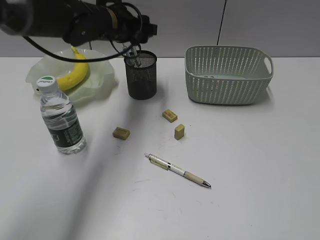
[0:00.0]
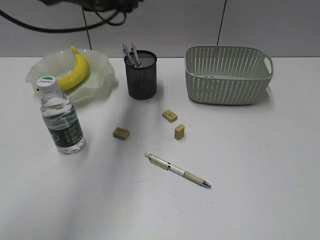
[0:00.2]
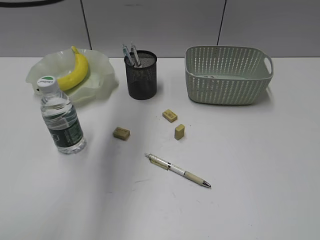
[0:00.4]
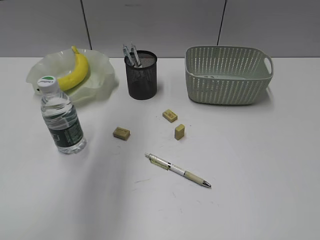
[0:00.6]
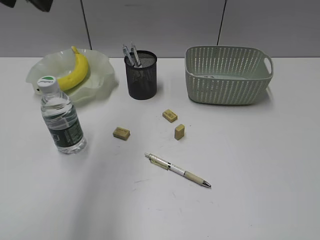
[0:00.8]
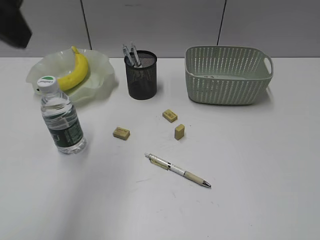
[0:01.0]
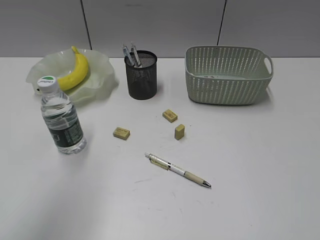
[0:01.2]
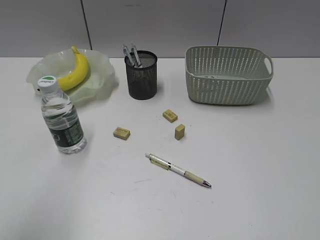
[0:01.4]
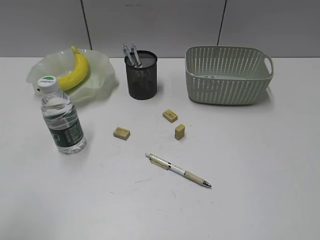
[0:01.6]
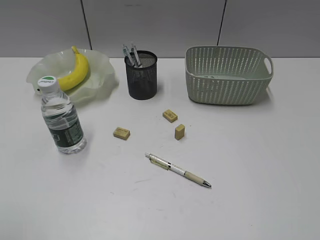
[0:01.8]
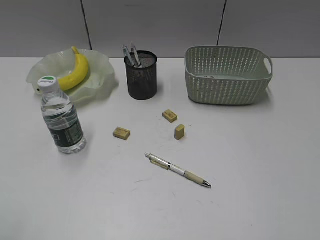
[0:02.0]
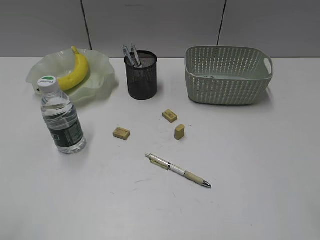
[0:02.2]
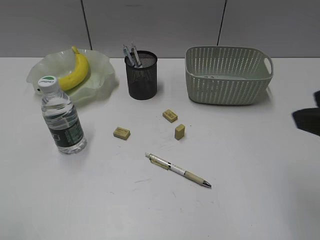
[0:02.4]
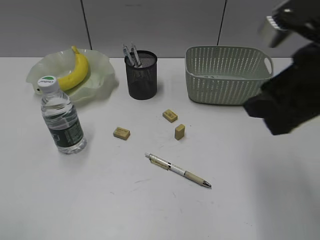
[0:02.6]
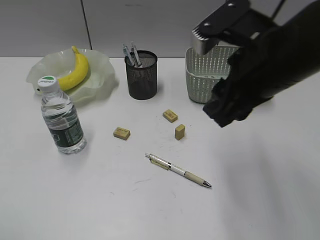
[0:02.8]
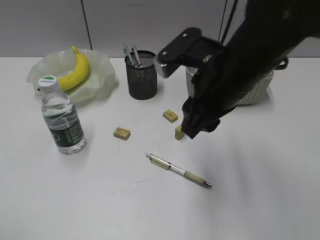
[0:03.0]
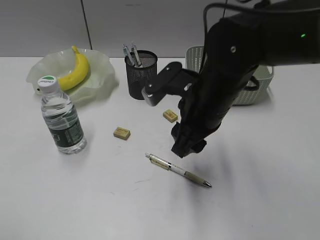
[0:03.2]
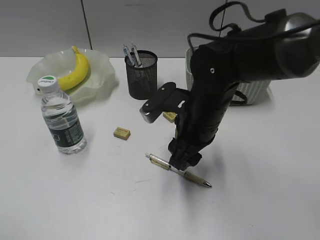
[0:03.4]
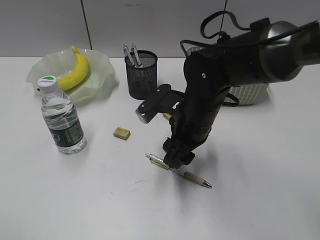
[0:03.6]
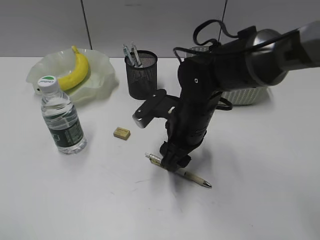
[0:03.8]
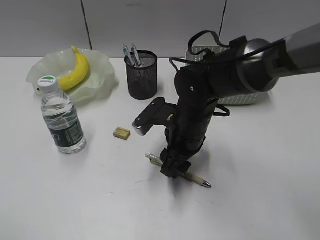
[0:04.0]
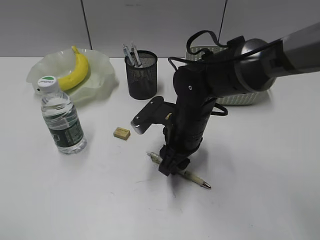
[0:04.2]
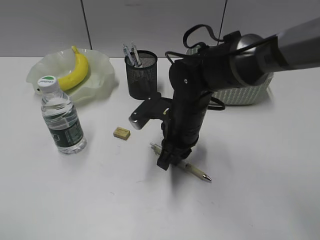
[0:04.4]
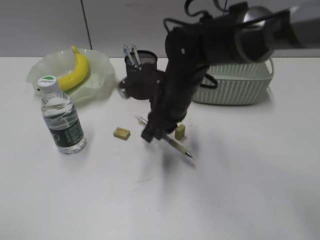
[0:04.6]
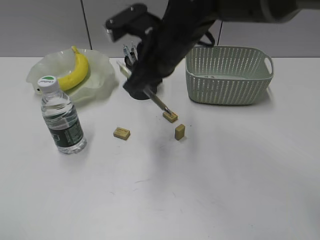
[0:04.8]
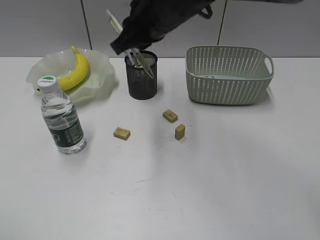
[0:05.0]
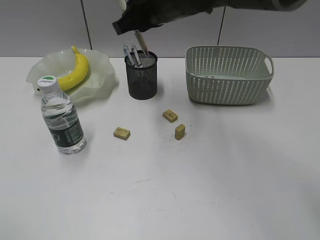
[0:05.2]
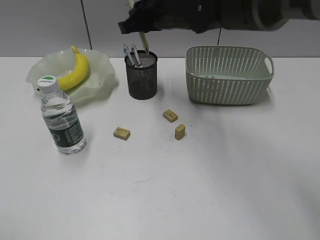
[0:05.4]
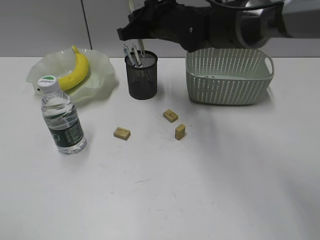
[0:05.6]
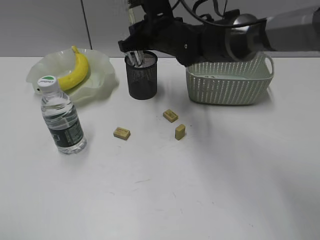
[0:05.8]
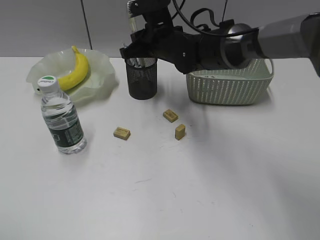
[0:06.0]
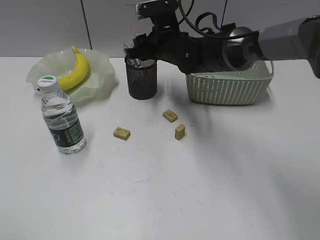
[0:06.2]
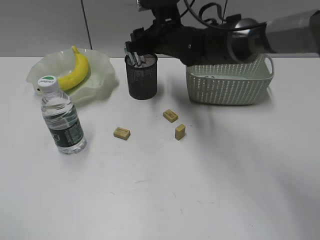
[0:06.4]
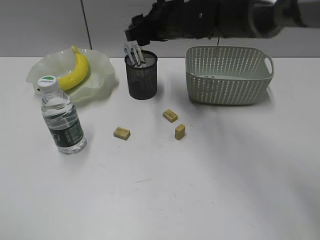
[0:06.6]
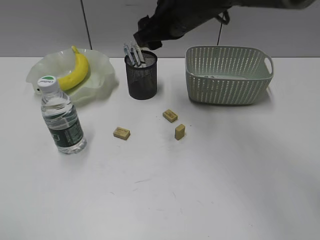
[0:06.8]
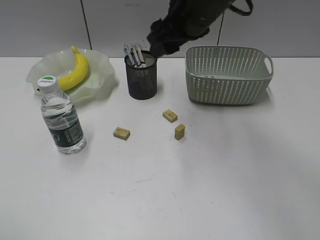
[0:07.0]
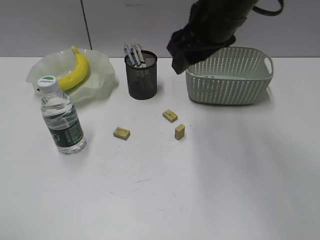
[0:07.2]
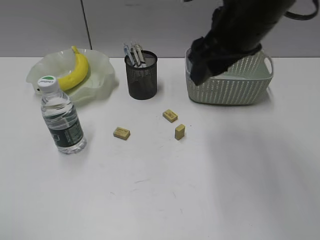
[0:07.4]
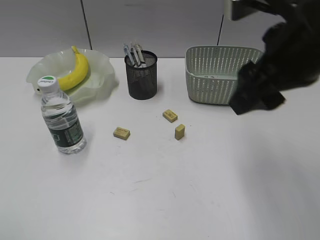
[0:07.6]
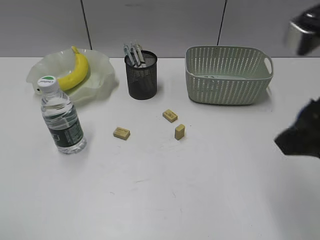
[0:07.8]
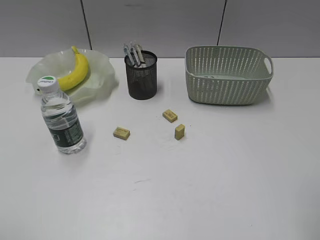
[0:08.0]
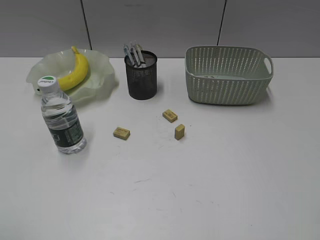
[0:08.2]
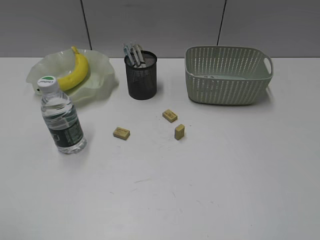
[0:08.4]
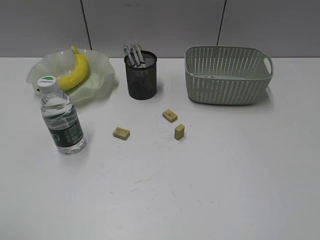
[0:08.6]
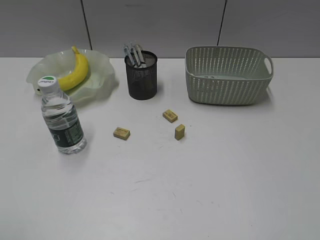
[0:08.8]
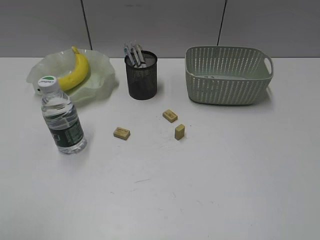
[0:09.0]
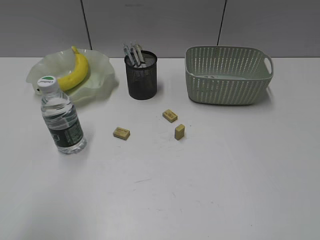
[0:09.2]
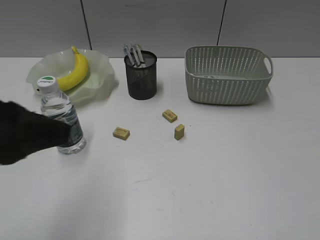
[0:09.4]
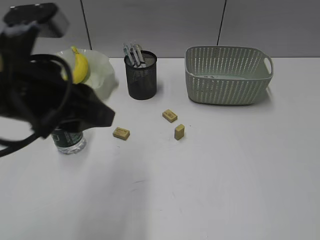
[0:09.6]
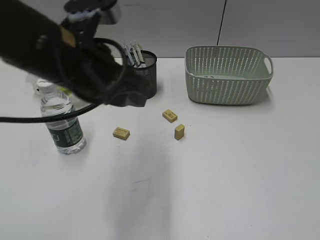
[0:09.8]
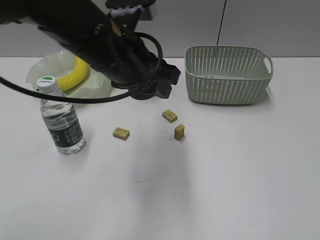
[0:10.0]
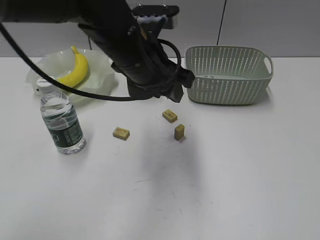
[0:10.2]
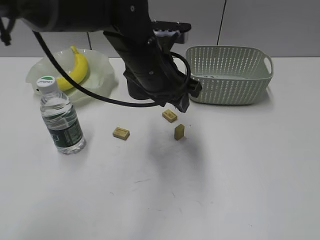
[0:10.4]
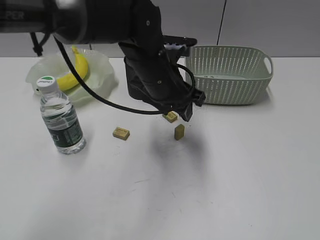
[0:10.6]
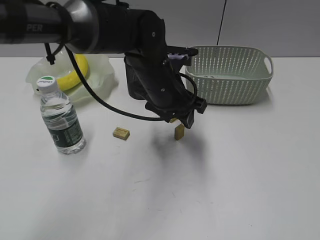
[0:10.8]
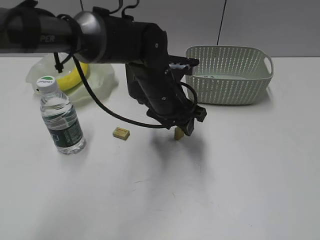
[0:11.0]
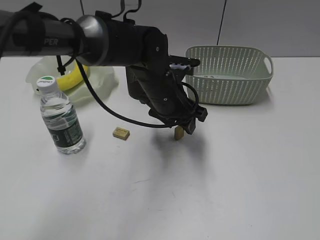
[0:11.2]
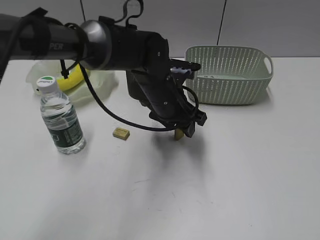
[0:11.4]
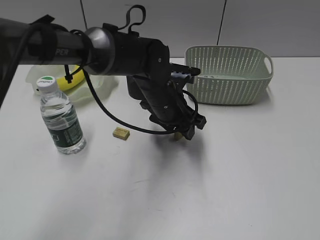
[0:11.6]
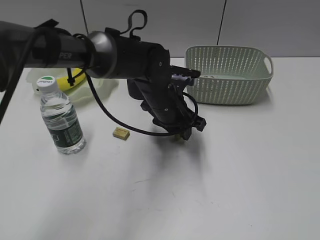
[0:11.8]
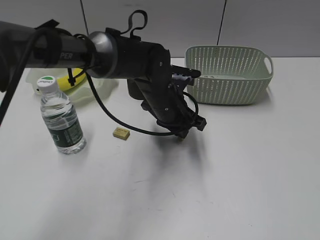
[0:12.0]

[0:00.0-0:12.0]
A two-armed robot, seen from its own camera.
Step, 0:00.0 to 0:04.4: Grasp the yellow pen with right gripper.
Step, 0:04.6 to 0:06.2: Place the yellow pen in pen holder with right gripper.
Step, 0:06.4 to 0:12.0: Grasp the eraser with left gripper.
0:00.0 to 0:01.6: The left gripper travels backward and to the left by approximately 40 cm.
0:01.6 to 0:03.0: The right gripper goes some 35 cm forward and to the left.
0:03.0 to 0:04.4: The right gripper goes about 10 cm downward, and closes its fingers.
0:04.4 to 0:06.0: The right gripper heads forward and upward, covering some 15 cm.
0:06.0 to 0:07.6: The right gripper moves backward, upward and to the right, about 30 cm, and opens up.
0:07.6 to 0:09.0: The right gripper moves backward and to the right, some 30 cm.
0:09.0 to 0:10.4: The left gripper is displaced forward and to the right by roughly 40 cm.
0:10.4 to 0:12.0: The left gripper heads downward, covering approximately 10 cm, and closes its fingers.

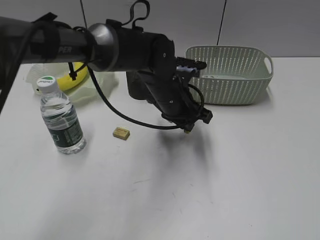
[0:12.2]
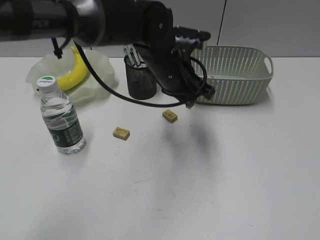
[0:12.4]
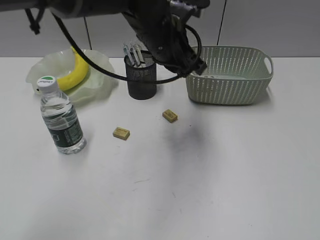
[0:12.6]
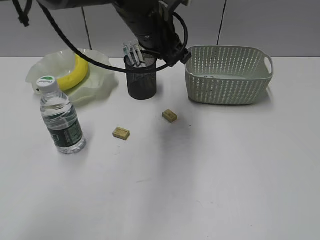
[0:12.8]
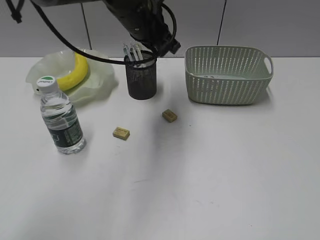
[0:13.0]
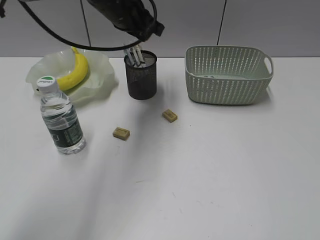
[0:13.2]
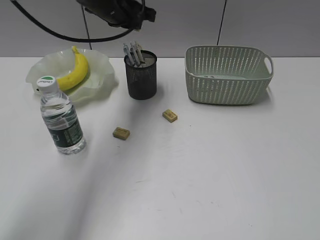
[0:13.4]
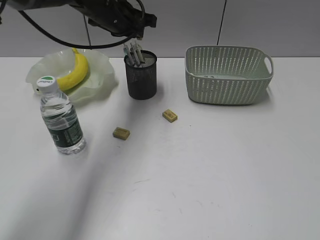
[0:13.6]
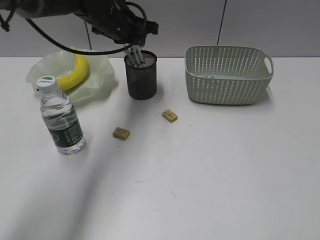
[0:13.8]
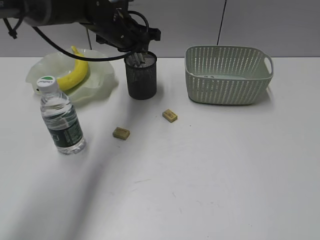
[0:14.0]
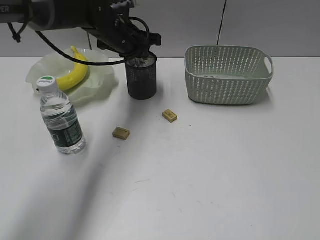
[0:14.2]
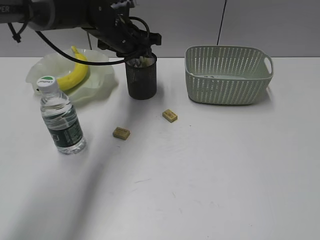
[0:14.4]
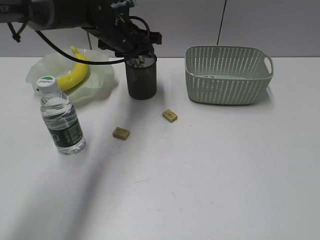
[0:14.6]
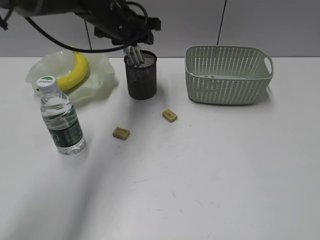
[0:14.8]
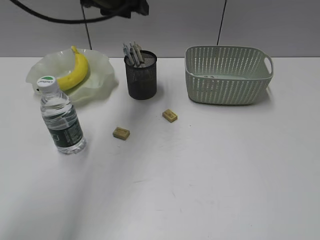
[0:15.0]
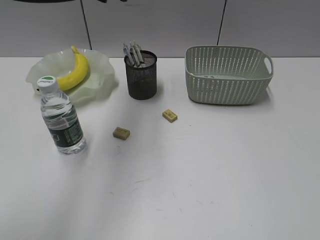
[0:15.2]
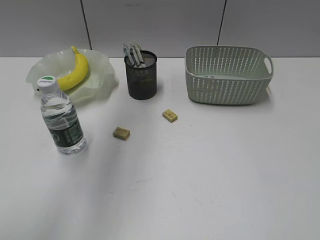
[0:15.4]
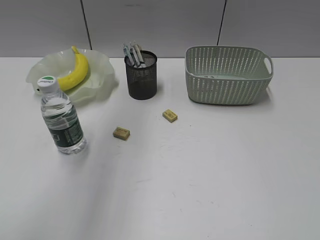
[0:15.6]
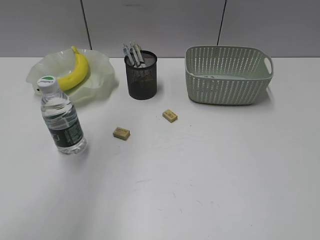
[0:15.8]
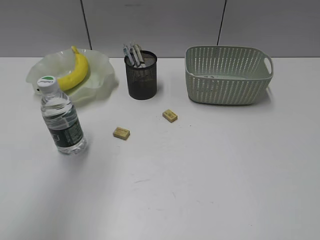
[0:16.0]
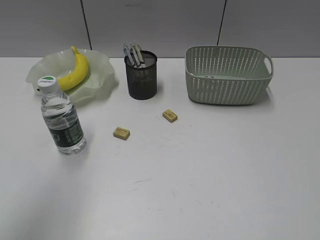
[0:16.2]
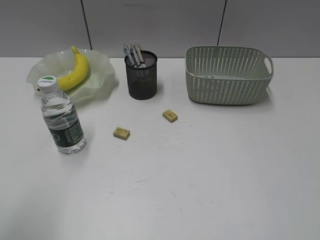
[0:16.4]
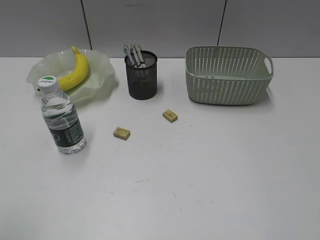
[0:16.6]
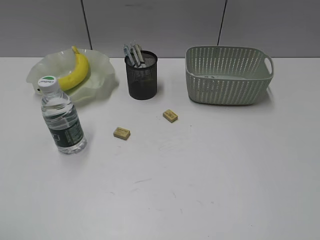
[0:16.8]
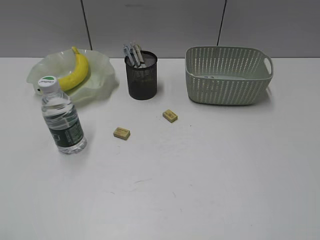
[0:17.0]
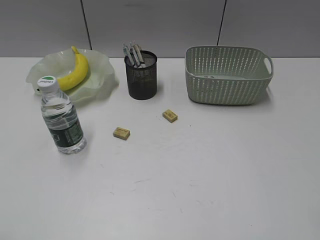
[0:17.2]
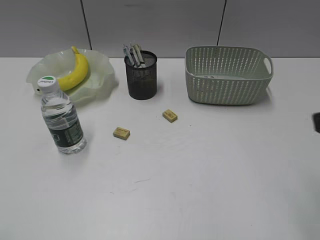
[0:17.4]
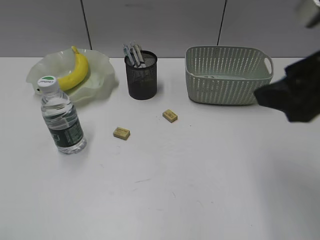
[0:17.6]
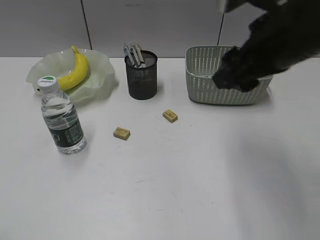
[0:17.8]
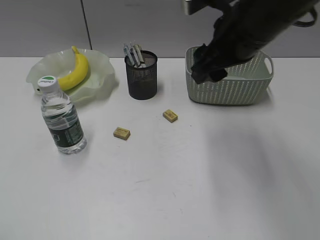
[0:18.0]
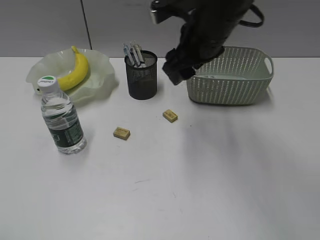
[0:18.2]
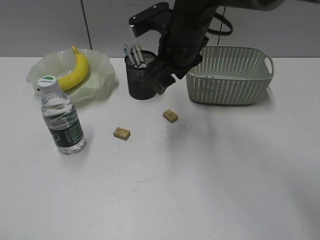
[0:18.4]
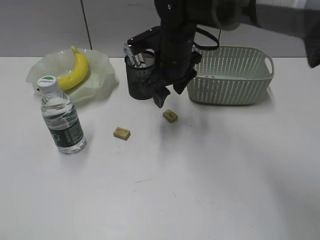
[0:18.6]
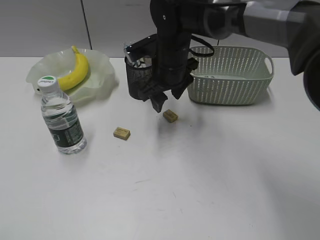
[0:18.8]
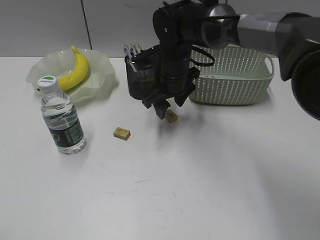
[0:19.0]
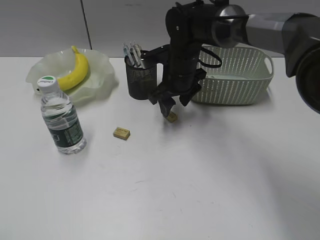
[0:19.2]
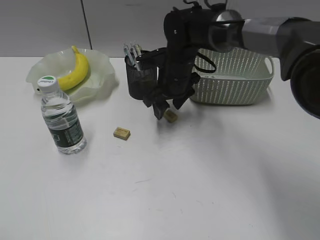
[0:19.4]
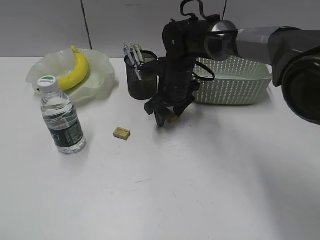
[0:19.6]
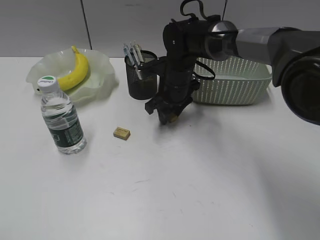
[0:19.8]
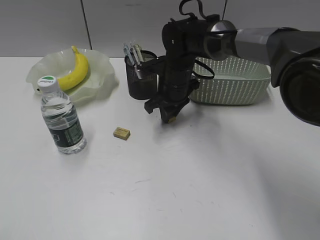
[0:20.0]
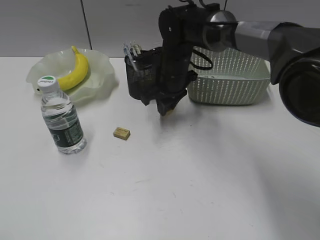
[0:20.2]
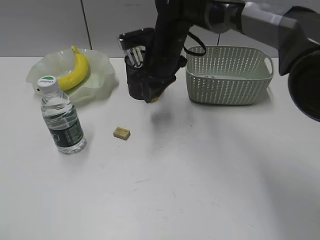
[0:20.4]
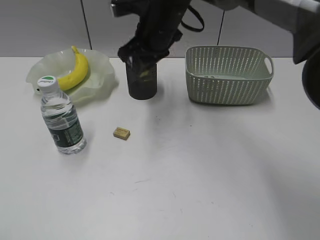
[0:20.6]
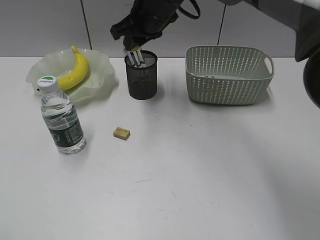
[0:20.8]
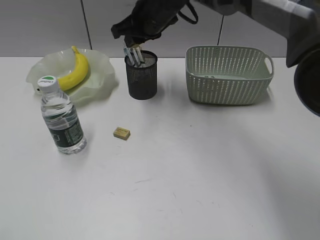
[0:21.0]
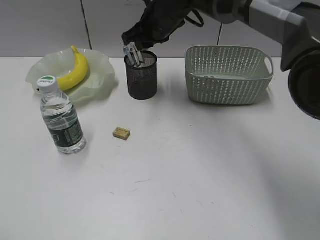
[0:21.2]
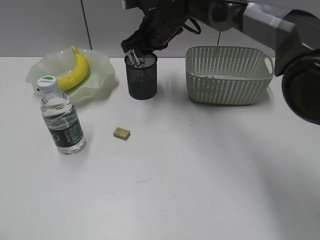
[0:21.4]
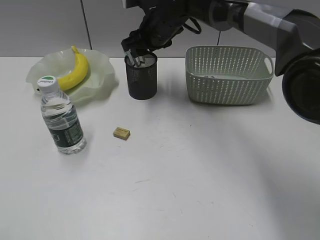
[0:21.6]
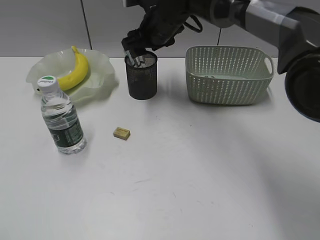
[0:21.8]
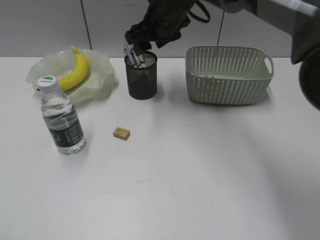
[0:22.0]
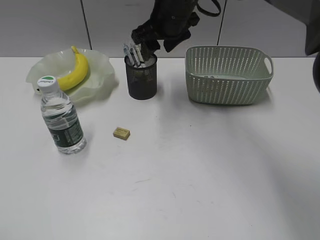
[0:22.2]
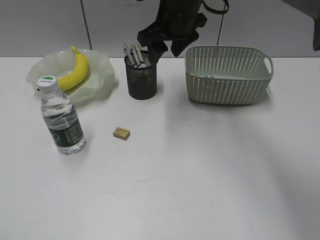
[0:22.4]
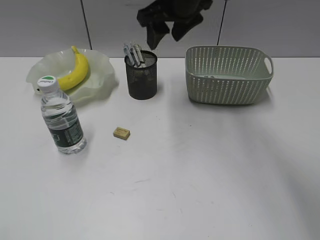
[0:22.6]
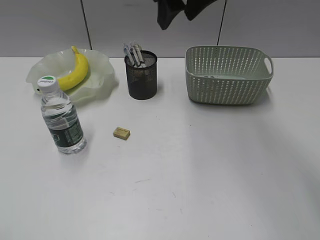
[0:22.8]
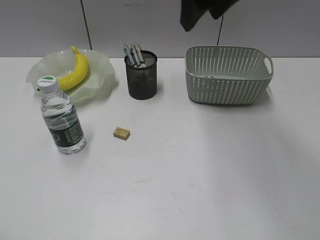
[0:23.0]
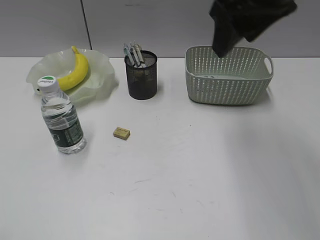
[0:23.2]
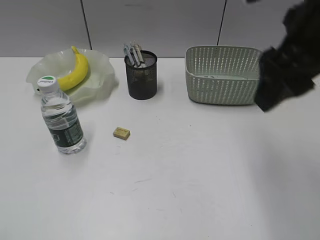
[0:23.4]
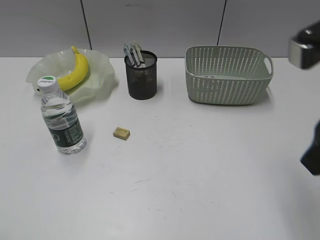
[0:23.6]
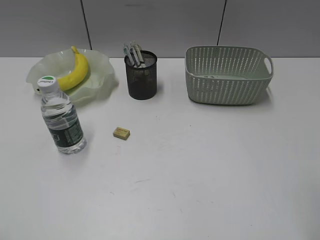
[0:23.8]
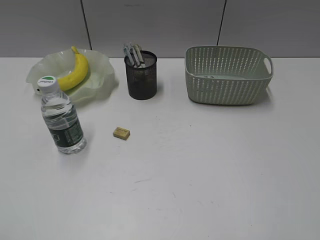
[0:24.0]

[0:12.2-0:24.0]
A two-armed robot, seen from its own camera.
Step, 0:12.2 to 0:14.6: Place the eraser in pen holder with left gripper.
Step, 0:14.8 to 0:19.8: Grasp the eraser with right gripper.
Step, 0:20.0 to 0:21.8: Place the eraser in pen holder with right gripper.
0:12.2 to 0:13.6: The left gripper heads to the left, forward and upward, covering some 20 cm.
0:13.6 to 0:15.2: The left gripper travels upward and backward by roughly 15 cm, and opens.
0:15.2 to 0:16.6: The left gripper heads backward and to the left, covering approximately 40 cm.
0:16.6 to 0:18.2: The left gripper moves some 5 cm. Meanwhile the right gripper is displaced forward and to the left by approximately 40 cm.
0:18.2 to 0:19.6: The right gripper shifts roughly 15 cm downward and forward.
0:19.6 to 0:21.0: The right gripper shifts about 10 cm upward, and closes.
0:21.0 to 0:22.6: The right gripper goes roughly 5 cm upward, and opens.
0:22.6 to 0:24.0: The right gripper shifts about 40 cm backward and to the right.
